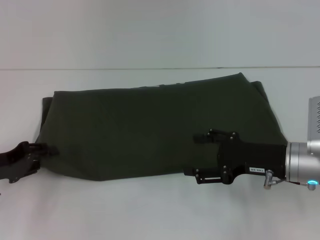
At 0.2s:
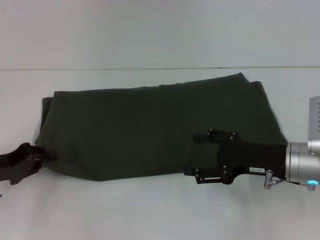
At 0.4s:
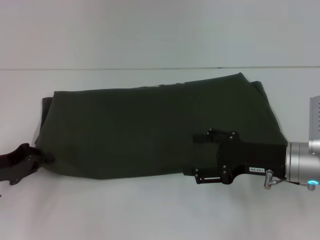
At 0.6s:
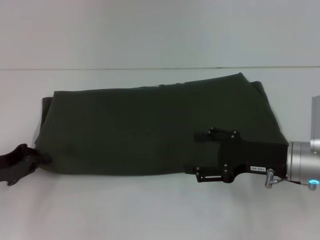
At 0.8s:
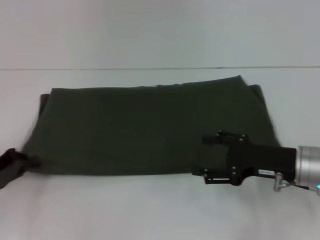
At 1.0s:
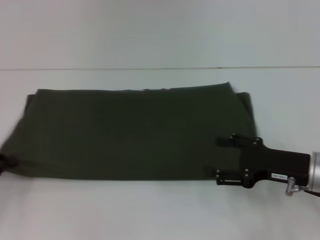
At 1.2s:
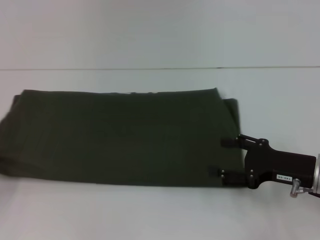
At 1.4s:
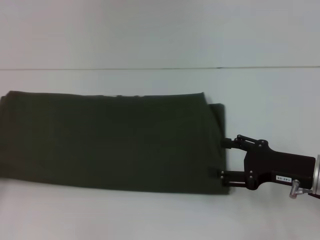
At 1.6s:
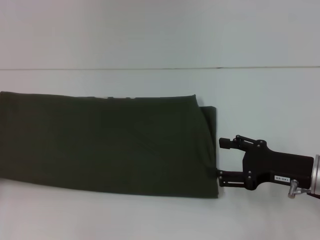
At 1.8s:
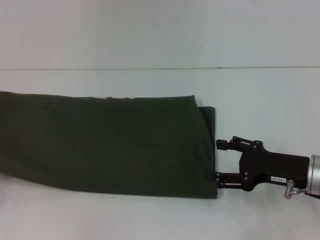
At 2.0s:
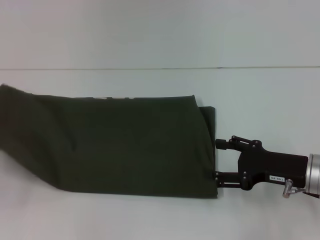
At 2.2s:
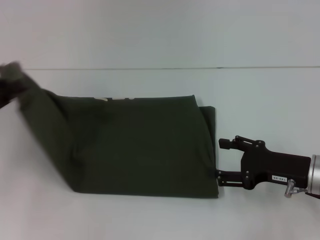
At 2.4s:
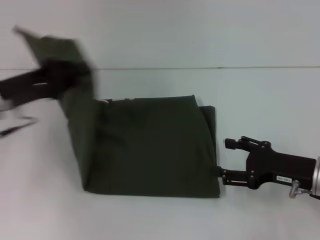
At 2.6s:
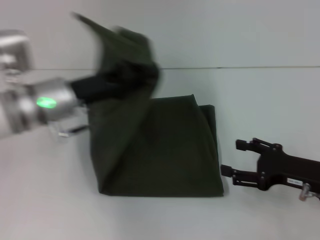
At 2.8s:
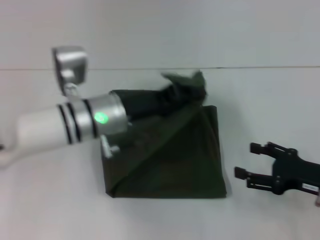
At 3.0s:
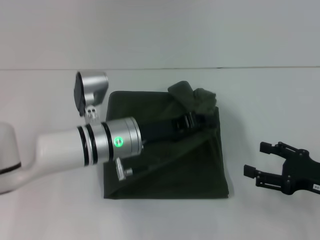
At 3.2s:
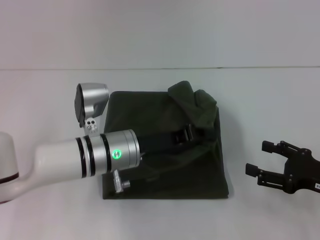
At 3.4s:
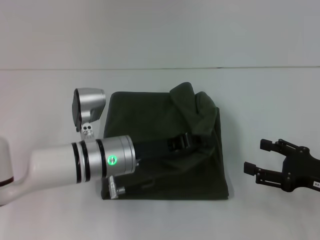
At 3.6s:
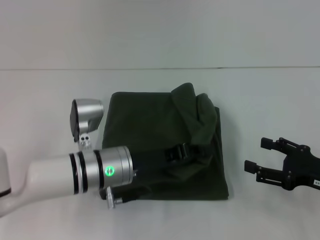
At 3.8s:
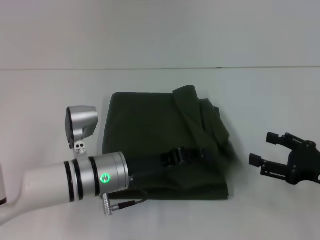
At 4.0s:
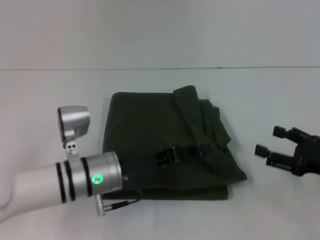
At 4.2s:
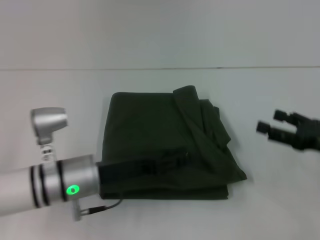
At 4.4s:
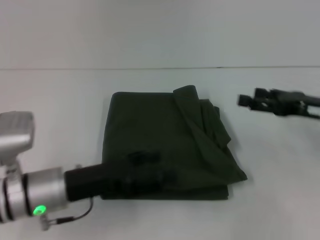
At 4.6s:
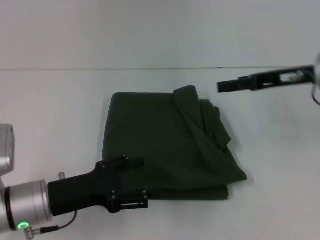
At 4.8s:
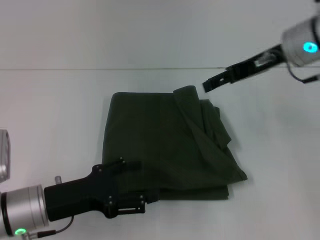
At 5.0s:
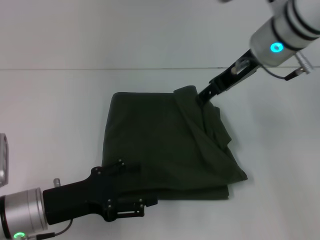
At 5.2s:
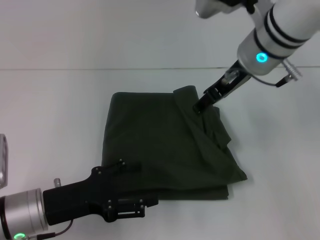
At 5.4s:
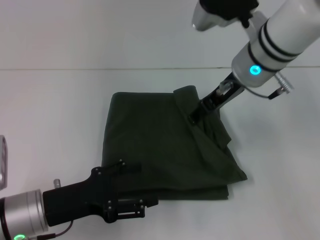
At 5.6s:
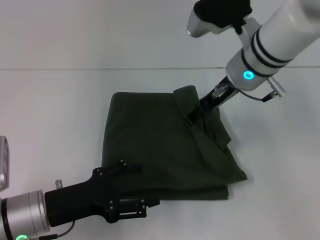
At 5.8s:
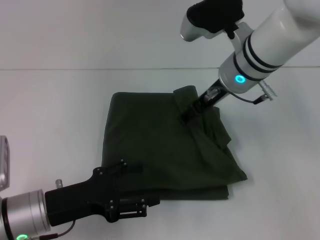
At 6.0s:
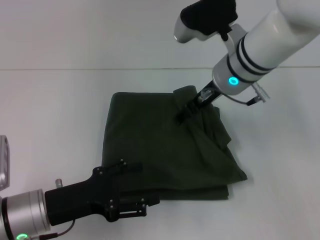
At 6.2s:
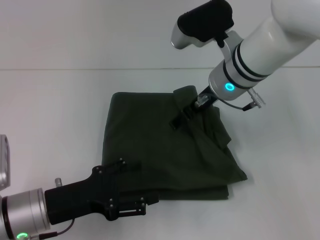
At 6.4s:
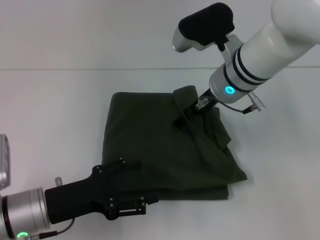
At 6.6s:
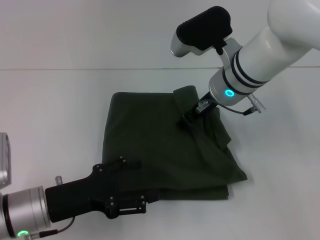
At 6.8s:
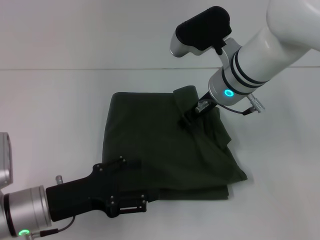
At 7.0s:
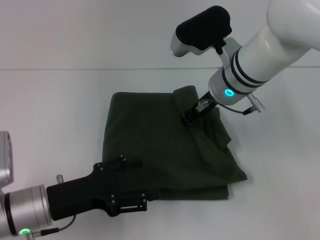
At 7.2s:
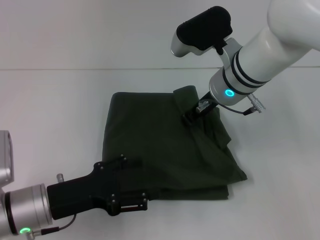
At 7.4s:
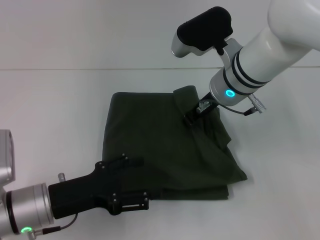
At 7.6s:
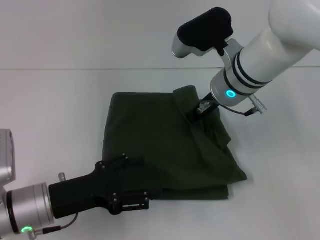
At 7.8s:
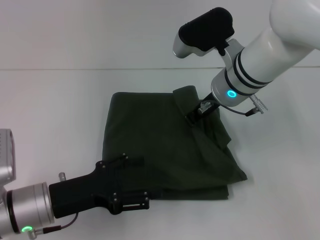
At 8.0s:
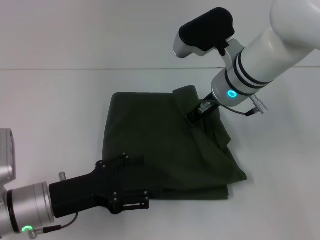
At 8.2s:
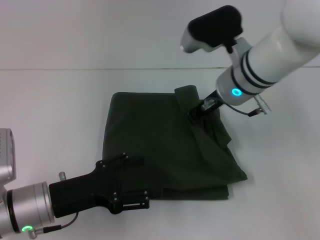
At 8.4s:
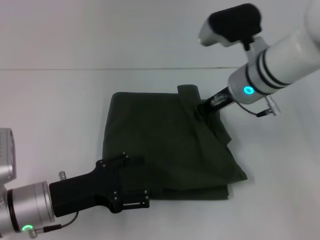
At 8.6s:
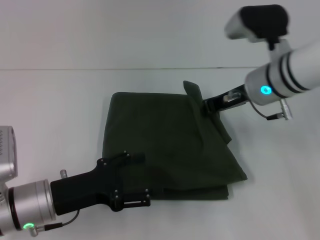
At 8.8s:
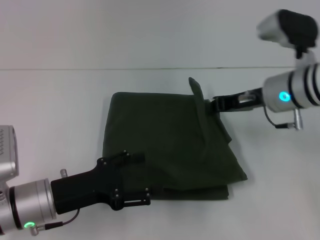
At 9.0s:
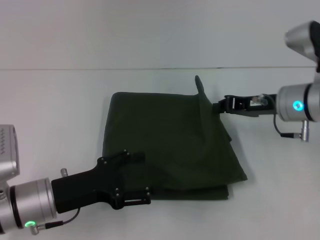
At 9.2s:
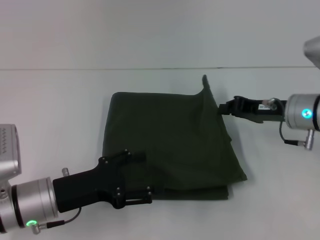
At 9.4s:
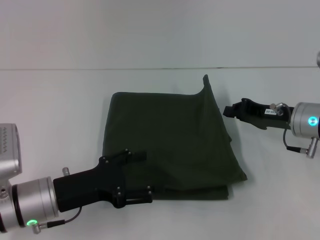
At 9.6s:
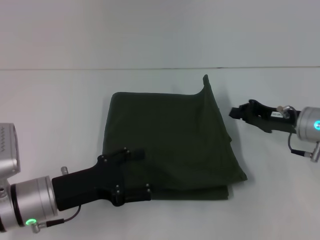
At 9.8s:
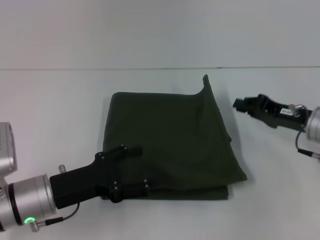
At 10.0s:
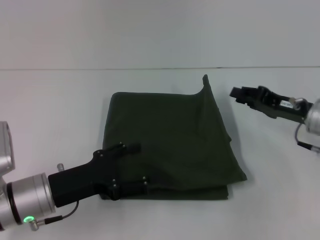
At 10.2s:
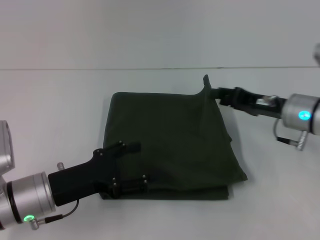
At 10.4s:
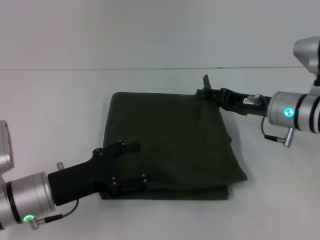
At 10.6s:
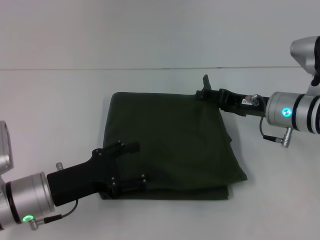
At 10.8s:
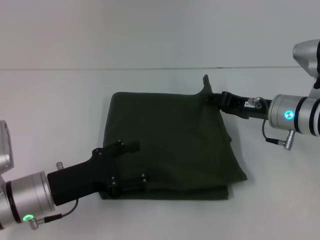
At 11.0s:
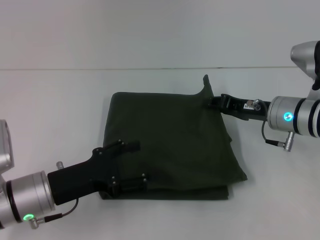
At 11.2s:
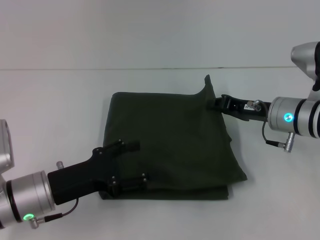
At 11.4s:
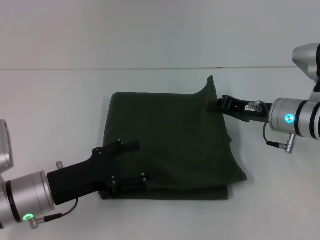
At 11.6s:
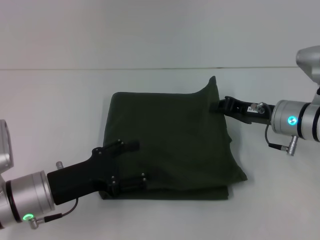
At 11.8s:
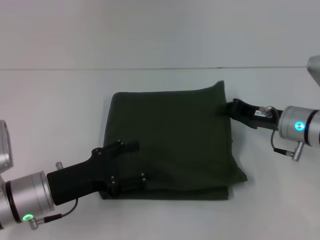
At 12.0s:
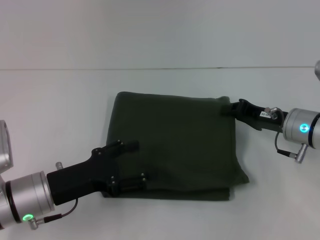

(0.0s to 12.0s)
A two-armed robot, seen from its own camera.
Step, 0.0s - 3.8s: Fold the clothes with your left hand.
0.0s - 1.6s: The left gripper travels to the left by roughly 10 cm, and closes.
1.6s - 3.0s: The left gripper heads to the right, covering about 35 cm, while the right gripper shifts some 5 cm to the right.
3.0s - 4.4s: The left gripper heads to the left and backward, covering roughly 10 cm, and opens its fingers. Meanwhile the right gripper heads forward and upward, covering about 10 cm.
4.4s - 6.0s: The right gripper is displaced to the left and forward by some 20 cm.
6.0s - 7.6s: The right gripper closes its fingers.
7.6s - 9.0s: The right gripper heads to the right, covering approximately 10 cm.
9.0s - 10.4s: The right gripper opens up.
10.4s - 12.0s: The right gripper closes its fingers.

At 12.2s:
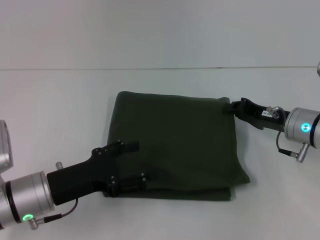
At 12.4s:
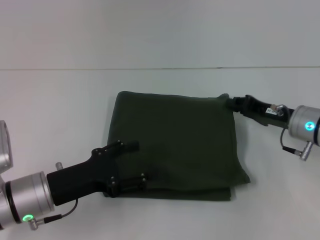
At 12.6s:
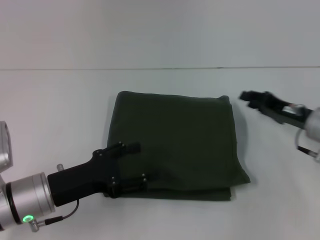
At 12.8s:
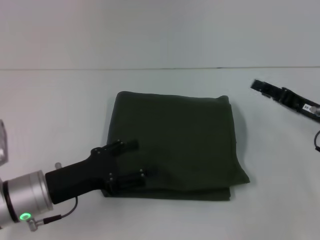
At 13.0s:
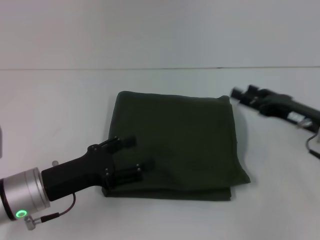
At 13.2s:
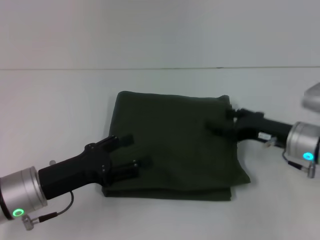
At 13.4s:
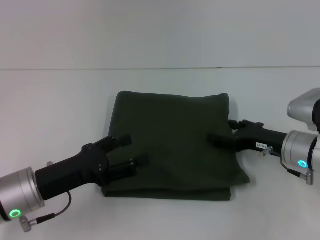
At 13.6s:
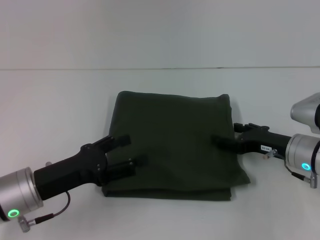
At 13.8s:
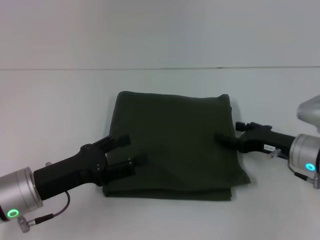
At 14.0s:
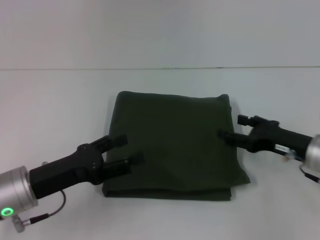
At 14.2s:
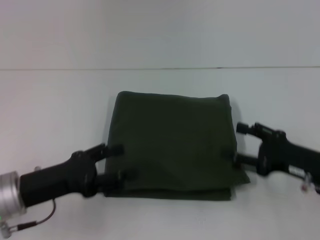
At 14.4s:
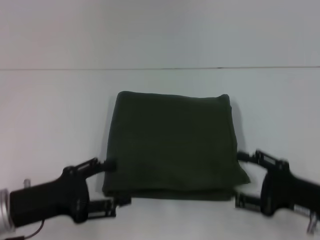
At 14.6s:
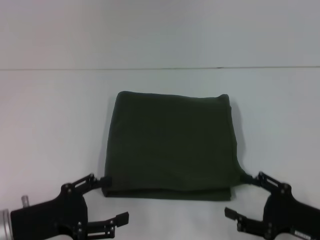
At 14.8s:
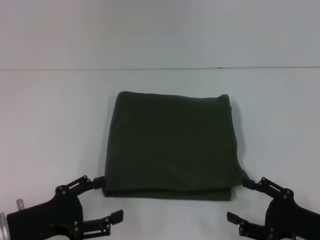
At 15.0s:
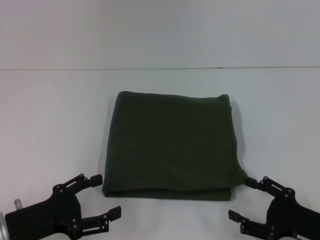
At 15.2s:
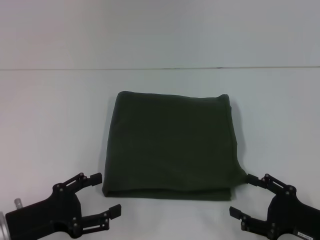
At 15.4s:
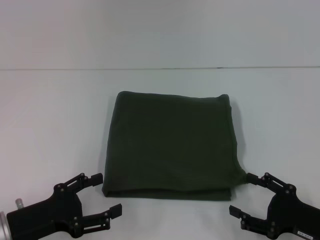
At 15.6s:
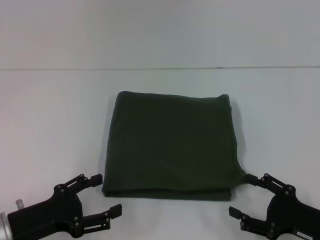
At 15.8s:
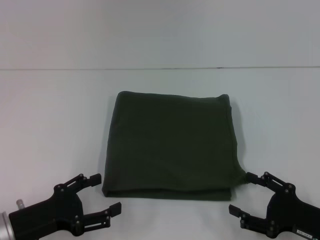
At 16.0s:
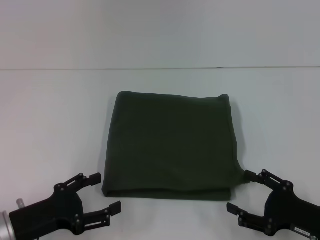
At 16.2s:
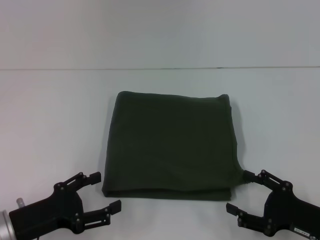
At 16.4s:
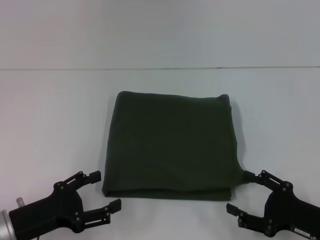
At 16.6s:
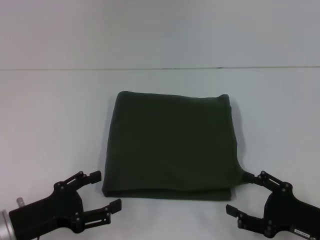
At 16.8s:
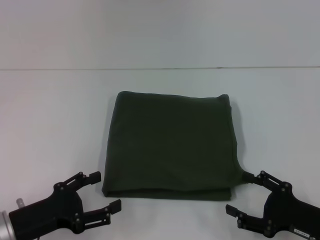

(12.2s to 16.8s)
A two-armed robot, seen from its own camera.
12.2s - 13.8s: The right gripper opens up.
13.8s - 15.2s: The left gripper ends up some 5 cm from where it was. The right gripper shifts some 15 cm backward.
15.2s - 16.8s: The two grippers keep their place.

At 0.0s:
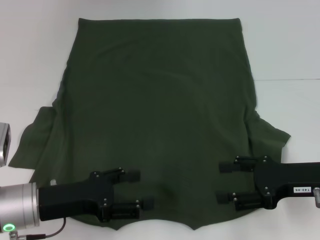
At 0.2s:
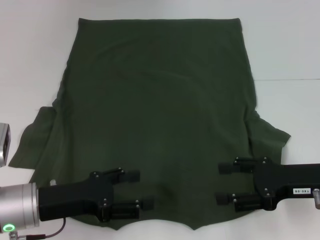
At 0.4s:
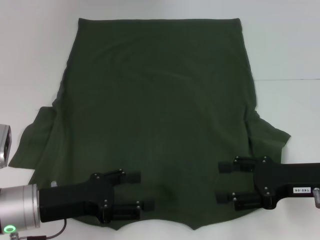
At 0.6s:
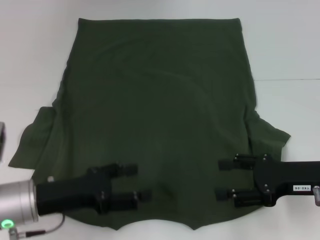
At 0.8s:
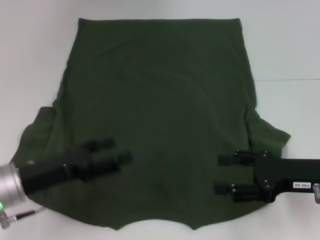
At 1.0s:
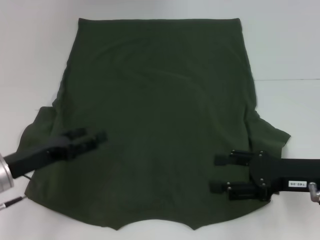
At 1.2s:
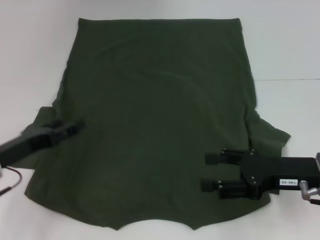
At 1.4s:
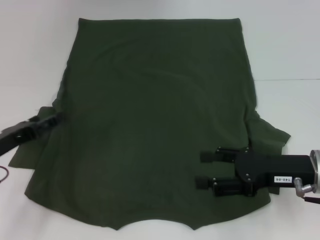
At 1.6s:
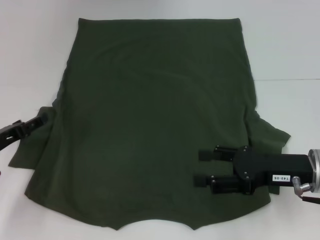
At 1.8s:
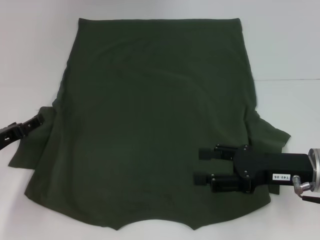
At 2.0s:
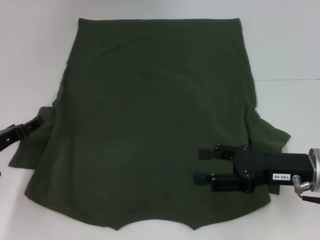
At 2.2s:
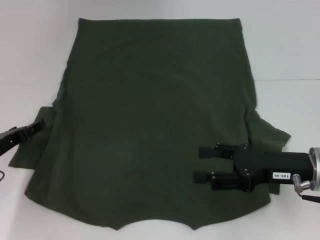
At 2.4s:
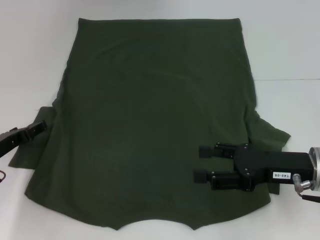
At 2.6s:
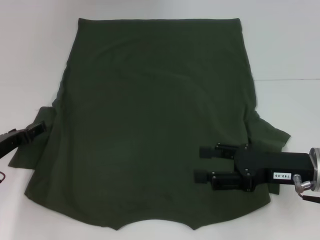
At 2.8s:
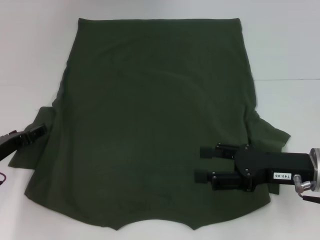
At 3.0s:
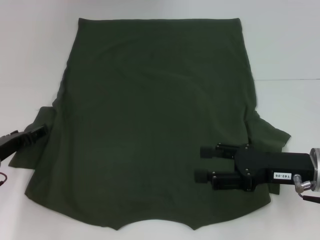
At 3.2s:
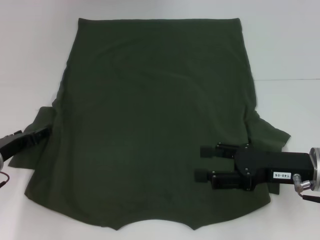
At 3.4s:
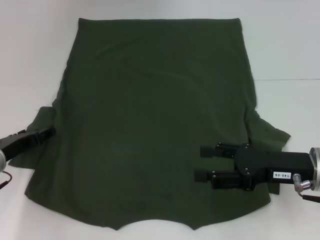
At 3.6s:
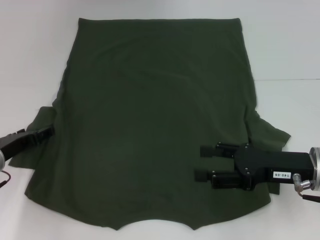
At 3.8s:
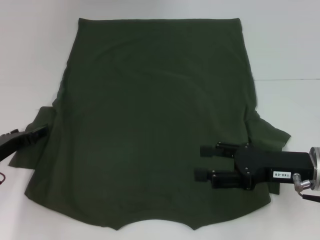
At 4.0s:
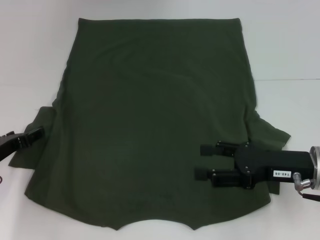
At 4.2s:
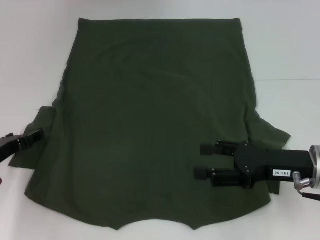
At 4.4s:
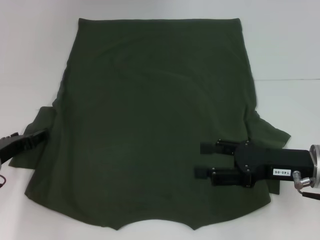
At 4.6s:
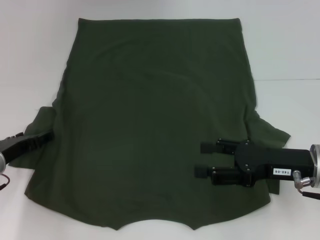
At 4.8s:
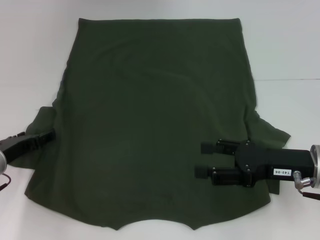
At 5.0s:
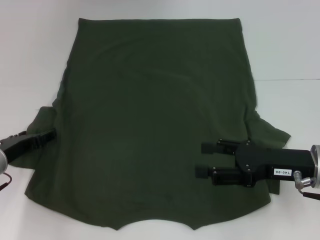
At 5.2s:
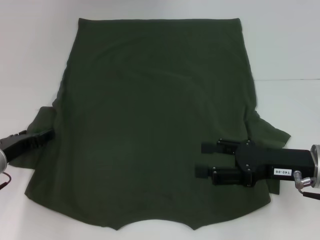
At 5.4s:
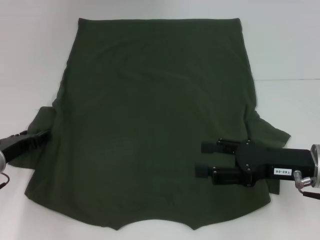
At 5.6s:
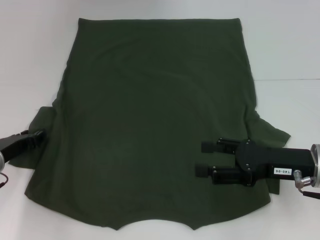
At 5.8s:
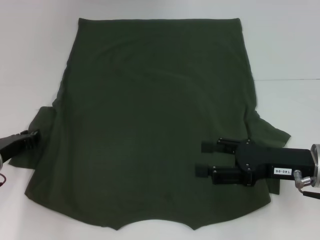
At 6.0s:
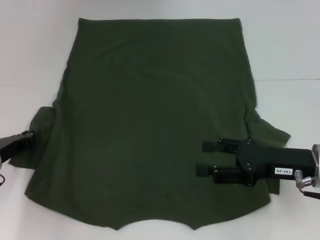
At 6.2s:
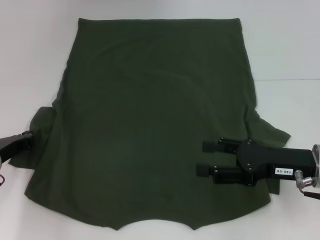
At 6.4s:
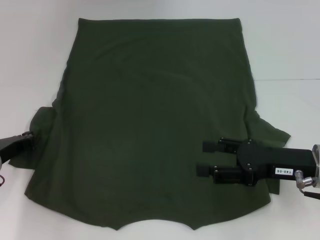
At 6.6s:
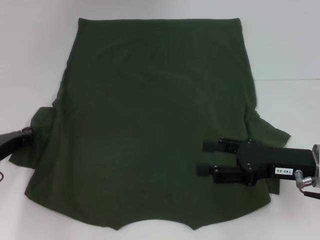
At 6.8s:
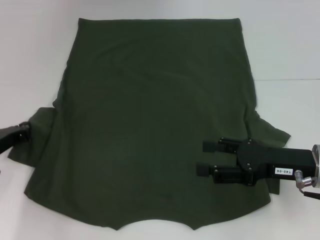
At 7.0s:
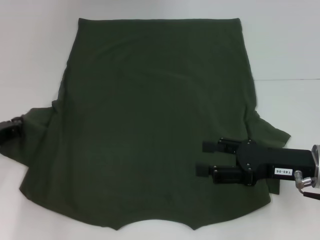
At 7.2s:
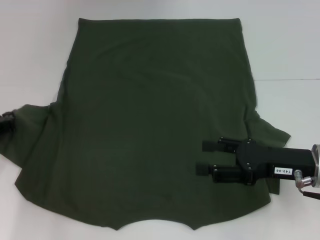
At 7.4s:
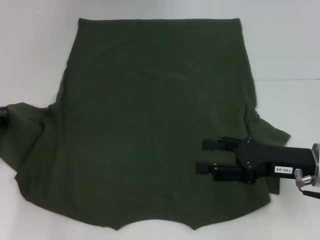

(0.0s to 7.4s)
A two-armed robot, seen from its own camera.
0.0s - 1.4s: The left gripper travels to the left by roughly 10 cm.
3.0s - 4.4s: Neither gripper changes place.
6.0s - 7.4s: The grippers stay close to where they were, moving slightly.
